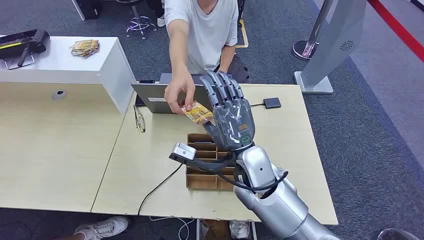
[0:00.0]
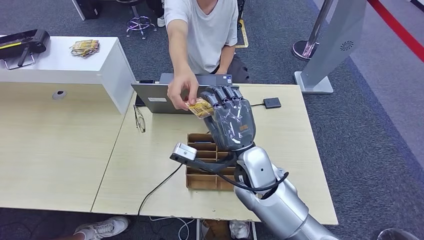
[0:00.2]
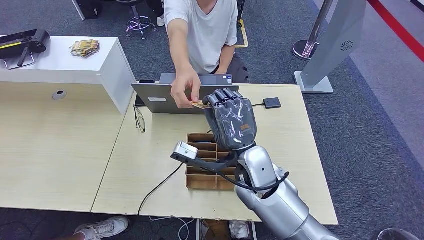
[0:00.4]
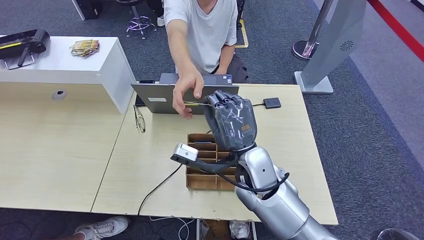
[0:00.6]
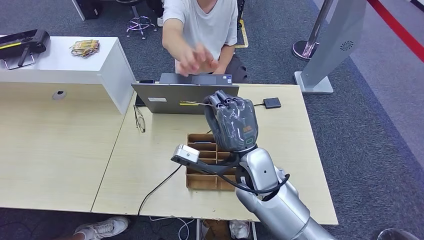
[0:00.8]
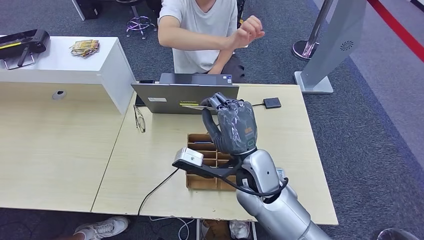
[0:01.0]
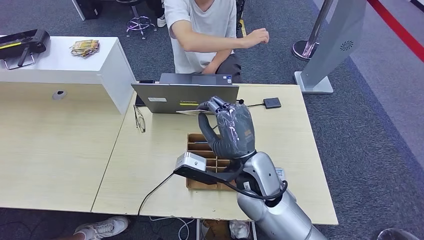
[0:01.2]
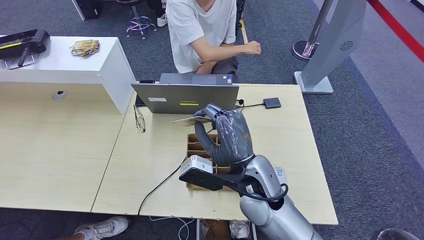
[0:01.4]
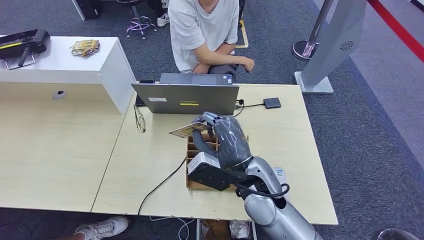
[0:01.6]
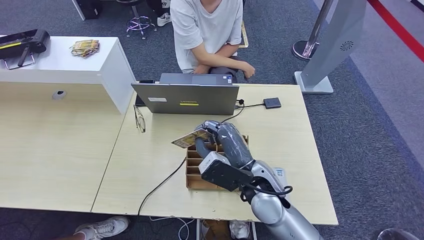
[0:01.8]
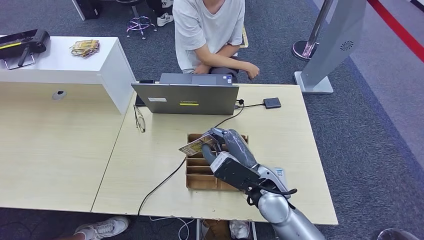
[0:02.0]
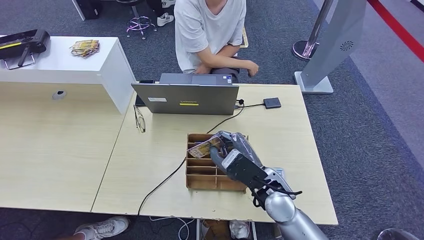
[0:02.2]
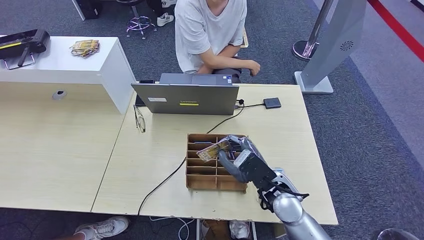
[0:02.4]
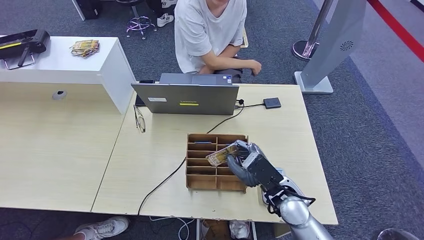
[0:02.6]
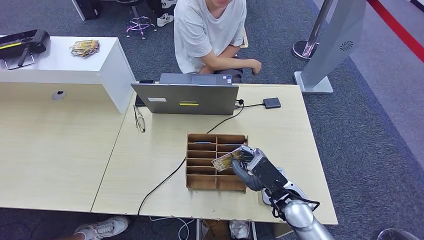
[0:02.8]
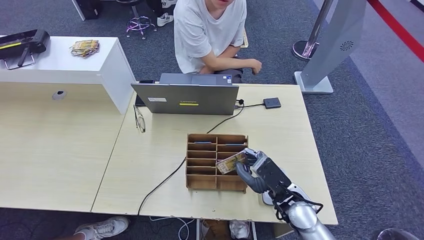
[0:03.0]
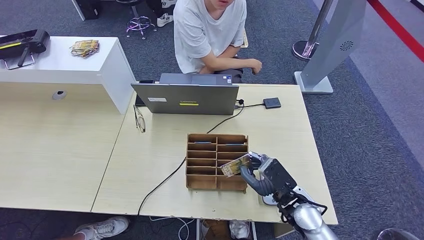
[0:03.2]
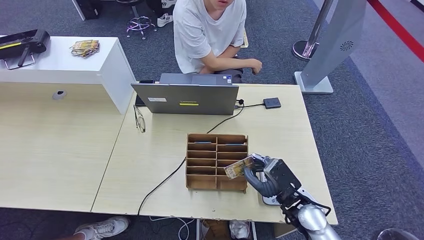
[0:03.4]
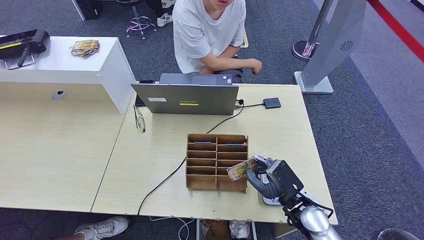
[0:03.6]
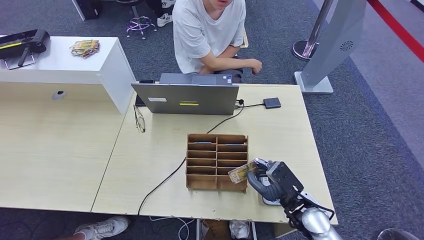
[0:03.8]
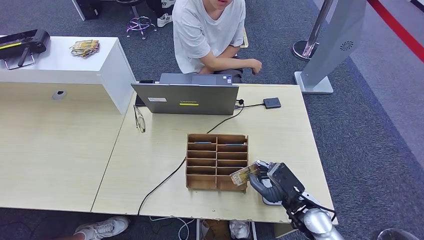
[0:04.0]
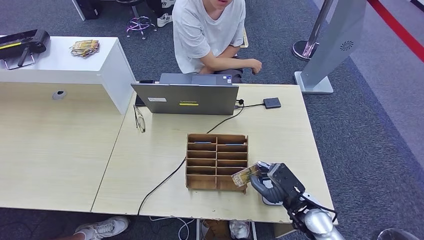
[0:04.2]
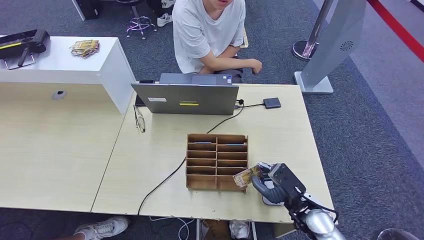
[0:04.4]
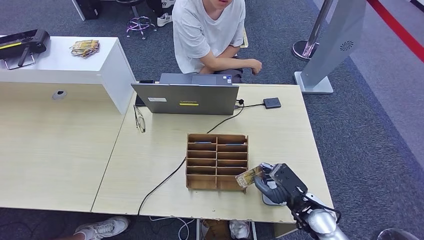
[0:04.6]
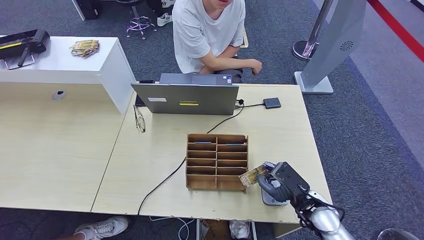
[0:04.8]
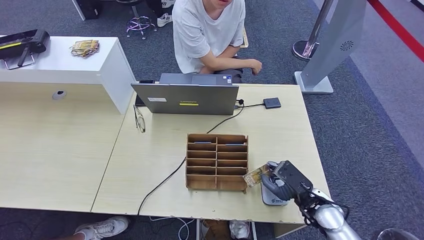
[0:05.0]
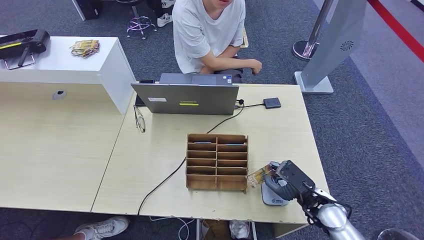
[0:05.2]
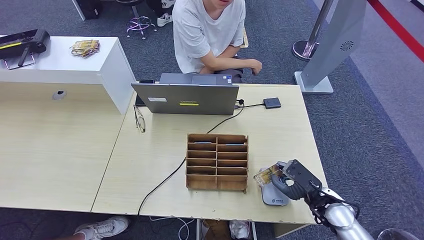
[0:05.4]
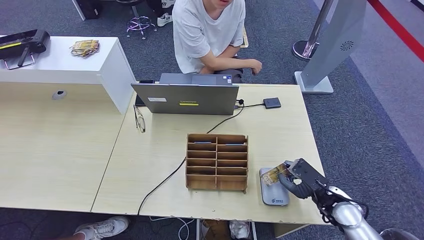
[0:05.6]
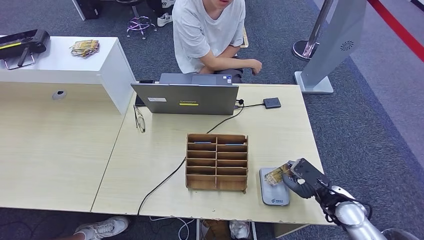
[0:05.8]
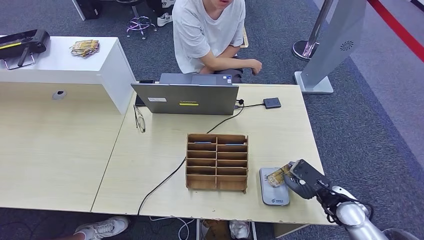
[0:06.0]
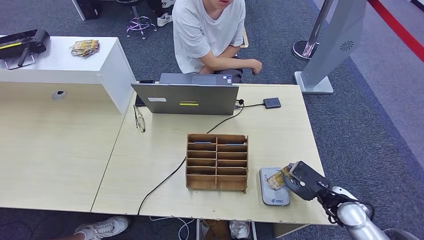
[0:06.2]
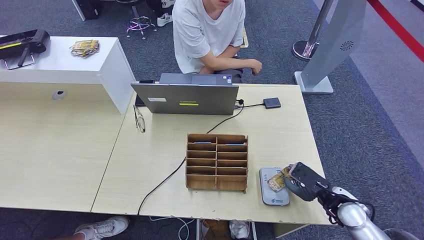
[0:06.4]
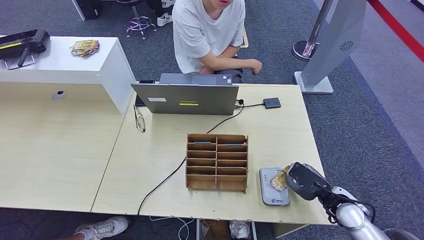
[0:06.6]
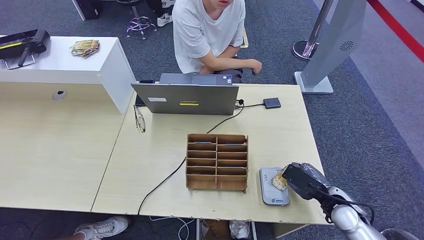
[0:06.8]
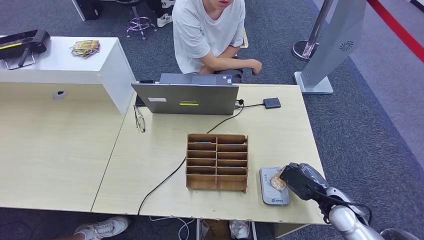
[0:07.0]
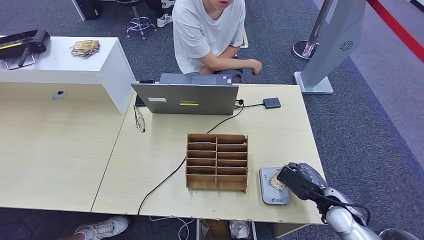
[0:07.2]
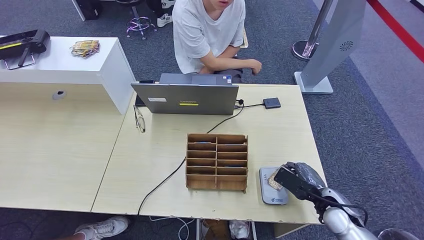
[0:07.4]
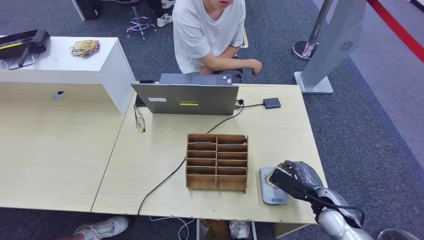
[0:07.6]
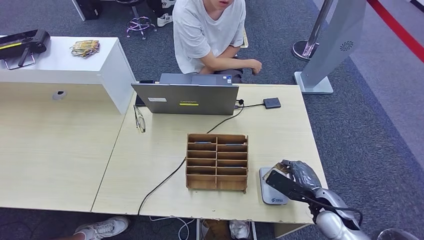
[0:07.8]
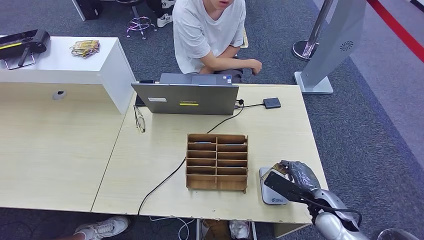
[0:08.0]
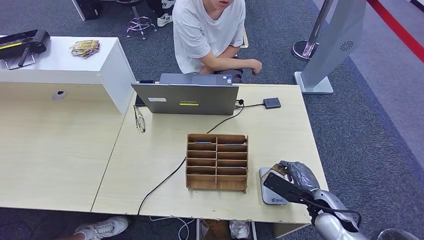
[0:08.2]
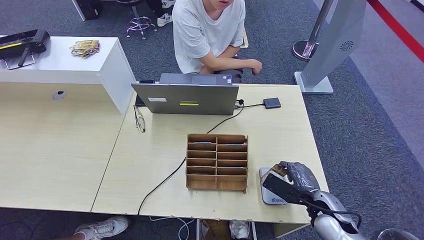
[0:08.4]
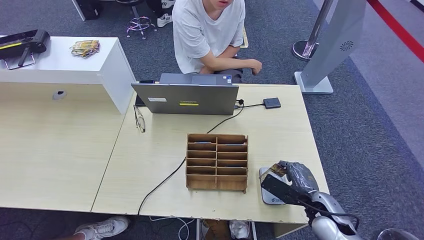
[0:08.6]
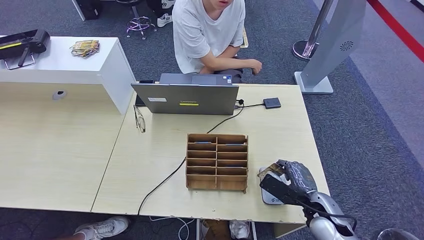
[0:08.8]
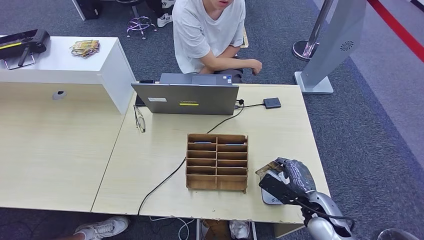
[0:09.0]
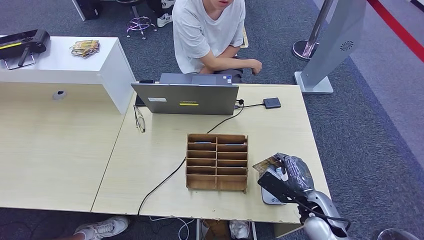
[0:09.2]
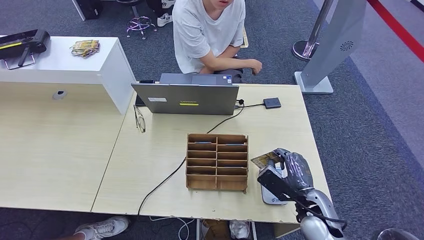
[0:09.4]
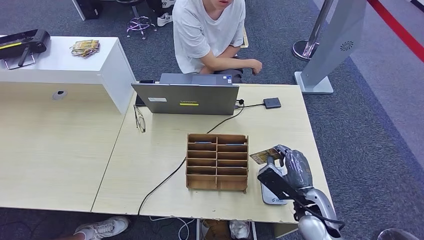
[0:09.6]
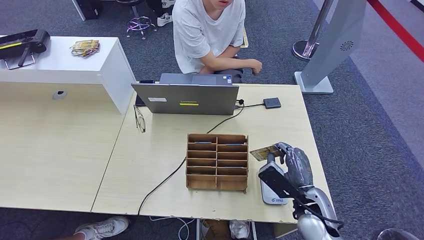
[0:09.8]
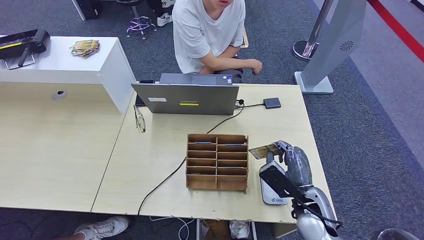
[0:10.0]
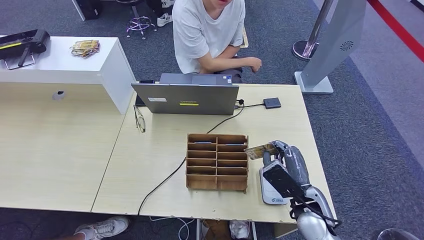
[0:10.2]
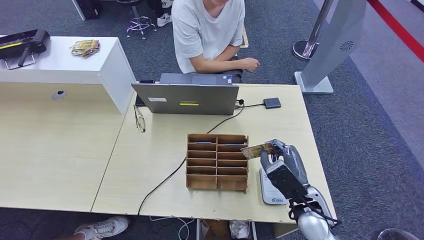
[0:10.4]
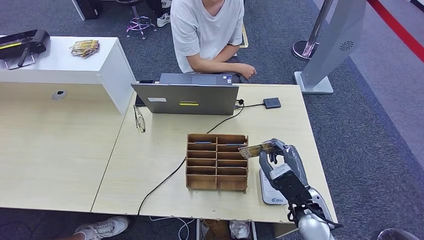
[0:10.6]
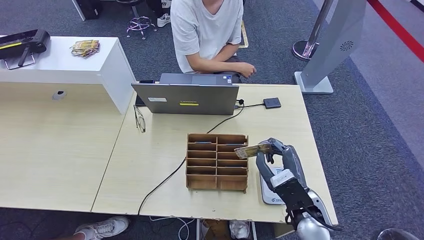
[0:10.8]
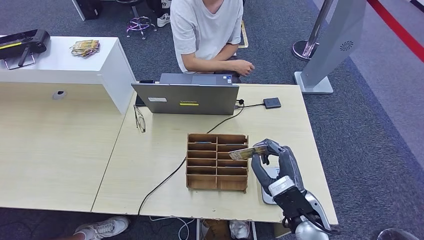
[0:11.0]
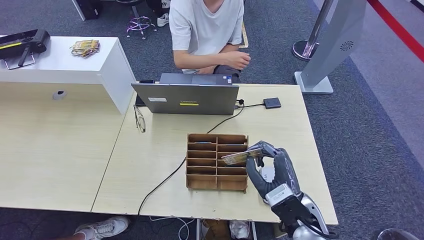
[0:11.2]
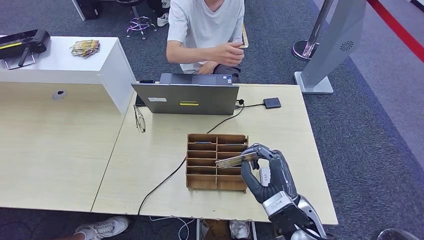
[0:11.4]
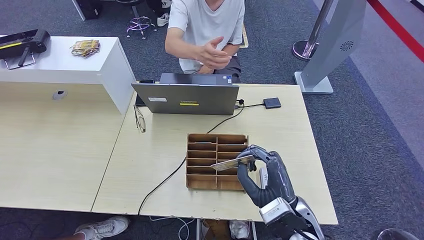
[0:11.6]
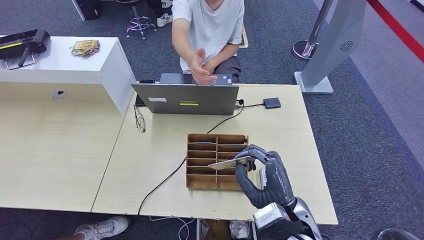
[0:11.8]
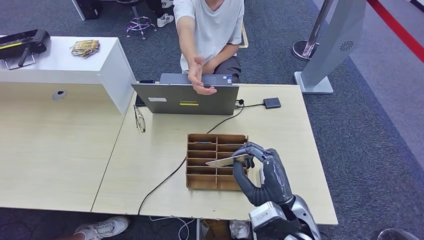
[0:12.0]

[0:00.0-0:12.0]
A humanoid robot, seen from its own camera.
Step, 0.0 to 1.4 s: Take the ID card from the person's hand.
Step, 1.6 to 10.0 s: Place the ID card on the card reader.
1.6 to 3.0 s: The right hand travels to the right and downward by some 15 cm.
3.0 to 4.4 s: The right hand goes about 5 cm to the right.
4.4 to 6.0 s: The right hand moves to the right, roughly 10 cm.
7.6 to 9.0 s: There are only small adjustments of the hands.
9.0 to 10.4 s: The right hand moves to the left, roughly 5 cm.
10.4 to 12.0 s: The right hand is displaced to the left and upward by about 10 cm.

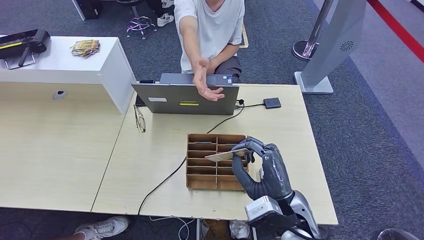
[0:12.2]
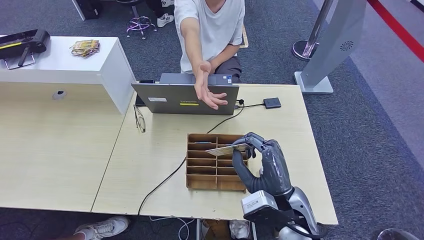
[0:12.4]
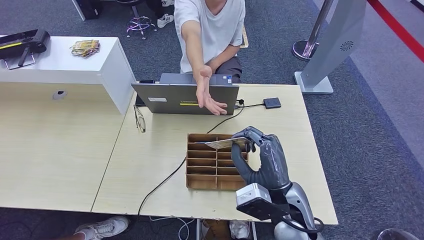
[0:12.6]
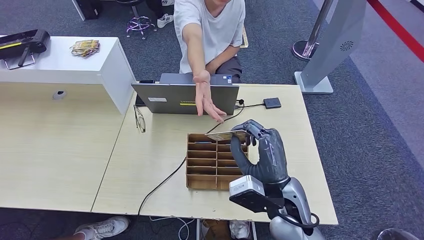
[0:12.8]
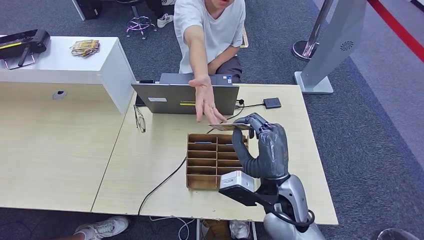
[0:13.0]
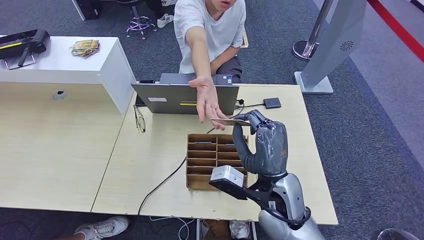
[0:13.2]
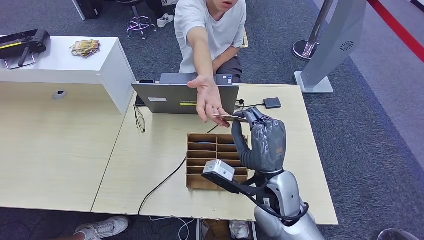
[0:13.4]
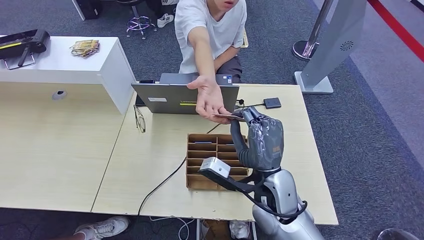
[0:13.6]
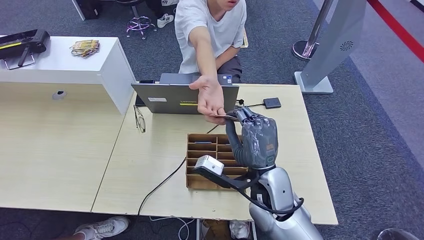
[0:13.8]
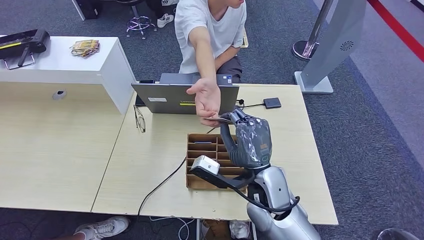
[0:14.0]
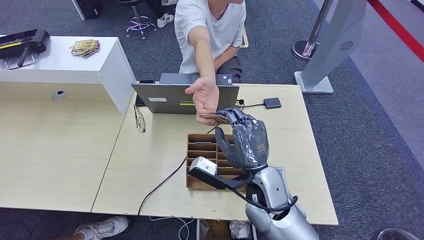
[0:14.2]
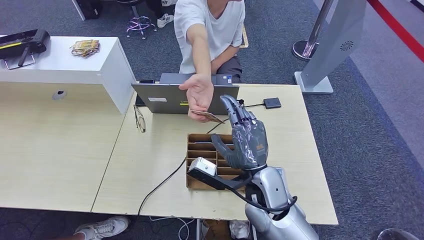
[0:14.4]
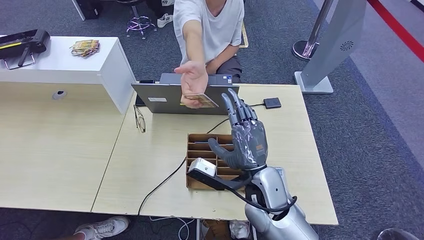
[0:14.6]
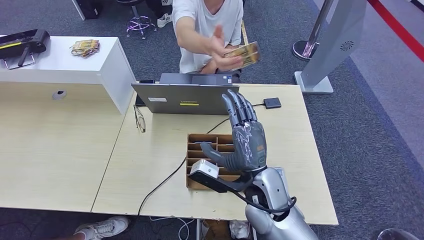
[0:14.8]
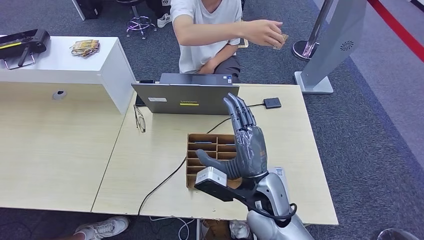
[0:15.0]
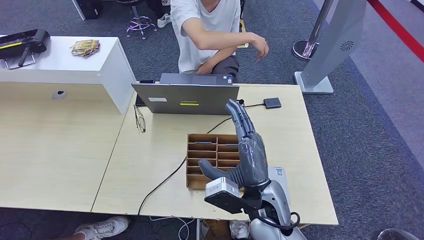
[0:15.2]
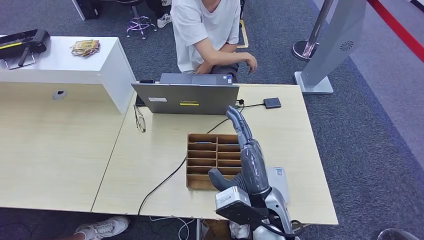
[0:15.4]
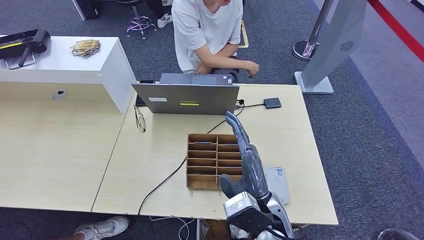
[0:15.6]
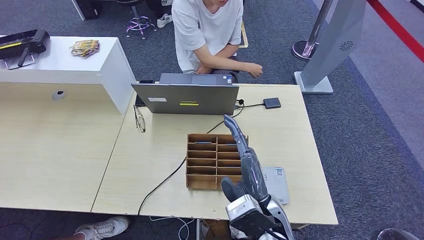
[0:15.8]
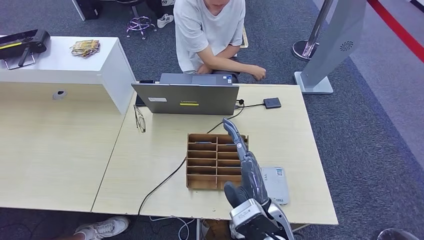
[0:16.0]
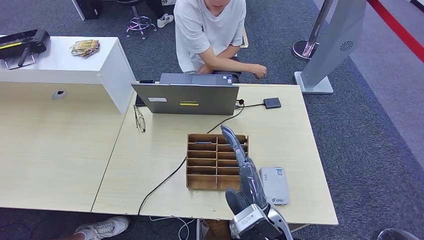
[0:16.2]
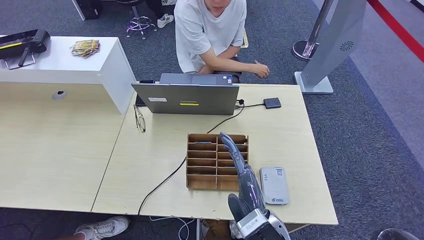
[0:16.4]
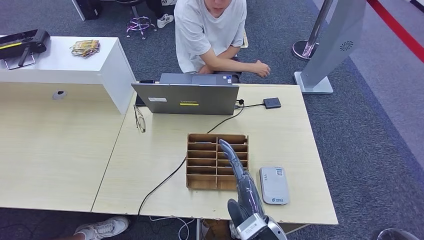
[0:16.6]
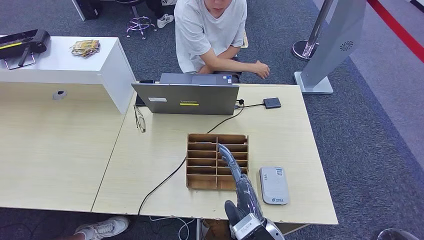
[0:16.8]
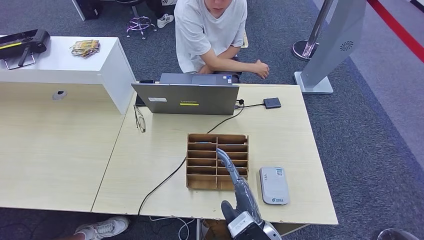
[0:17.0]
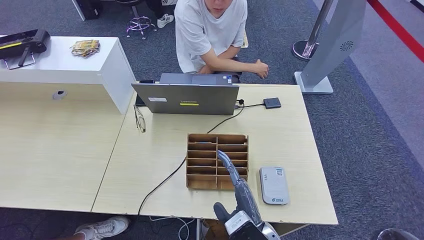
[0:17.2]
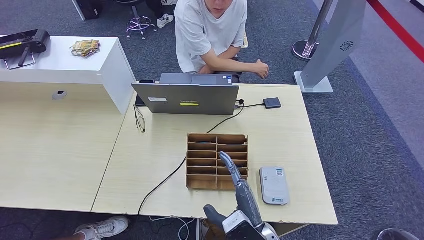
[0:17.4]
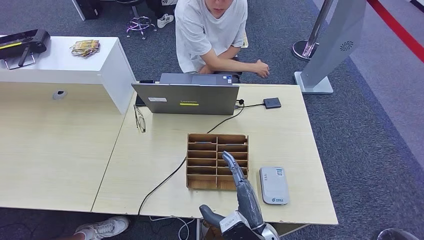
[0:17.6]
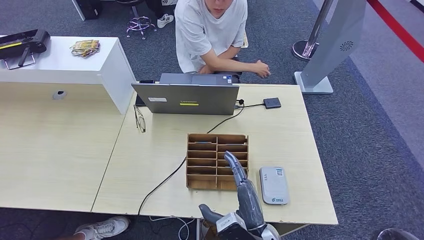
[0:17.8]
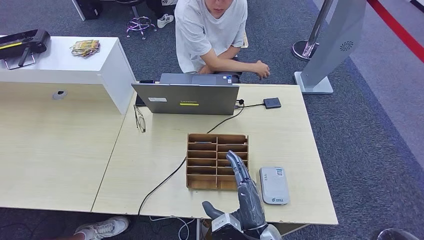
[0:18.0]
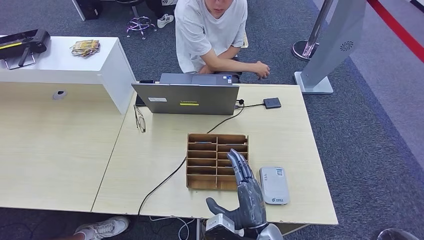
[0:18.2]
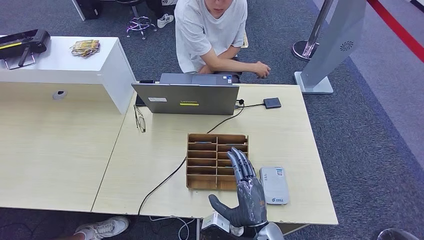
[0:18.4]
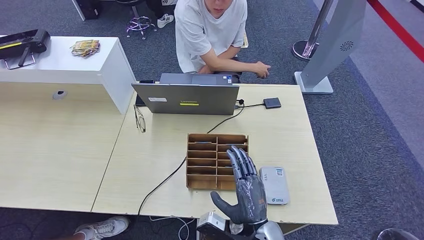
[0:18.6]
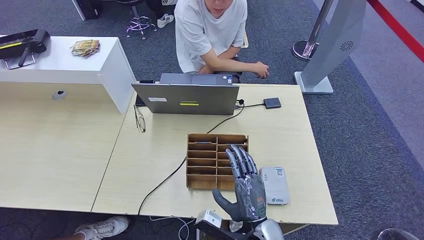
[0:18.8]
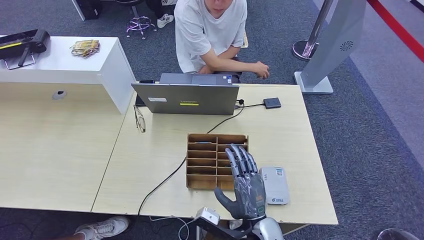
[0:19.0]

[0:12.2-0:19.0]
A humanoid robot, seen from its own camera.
Step, 12.2 to 15.0 s: Hand the ID card to the person.
12.2 to 13.6 s: The right hand shifts some 5 cm forward.
13.6 to 15.0 s: The hands stay close to where they were, moving slightly.
15.0 to 16.2 s: The right hand is displaced backward by about 5 cm.
16.2 to 17.6 s: The right hand goes roughly 5 cm downward.
